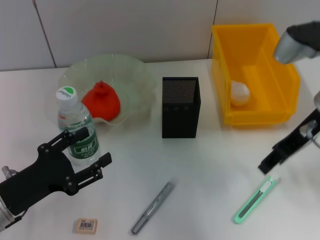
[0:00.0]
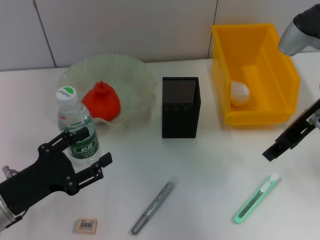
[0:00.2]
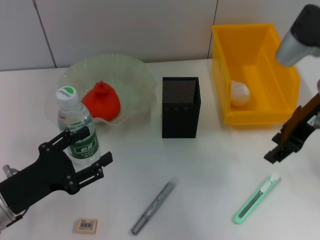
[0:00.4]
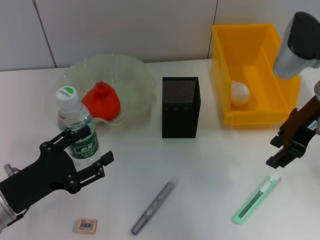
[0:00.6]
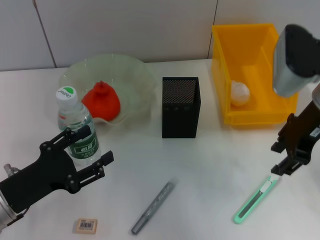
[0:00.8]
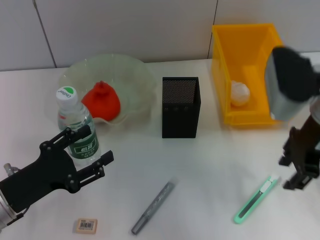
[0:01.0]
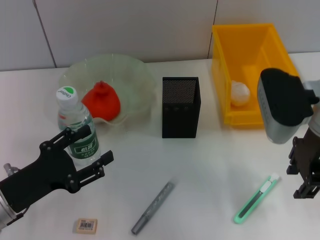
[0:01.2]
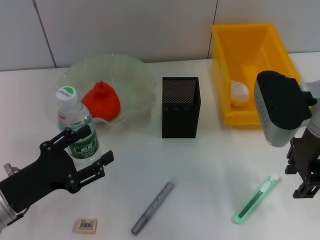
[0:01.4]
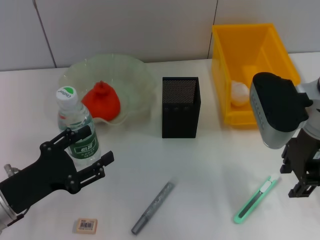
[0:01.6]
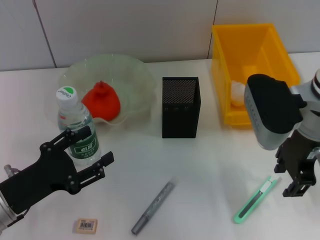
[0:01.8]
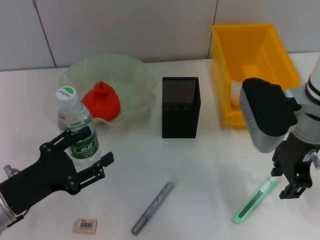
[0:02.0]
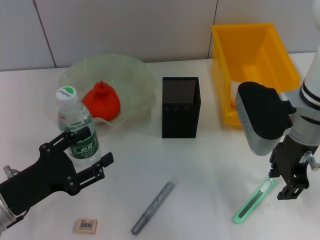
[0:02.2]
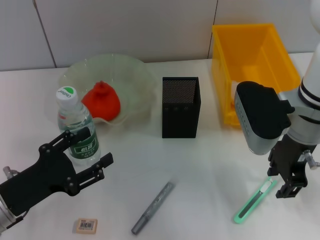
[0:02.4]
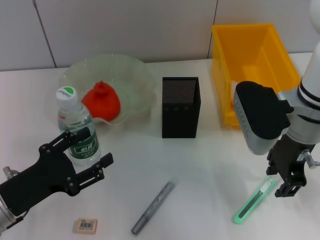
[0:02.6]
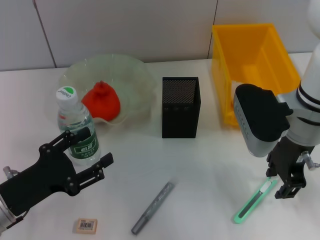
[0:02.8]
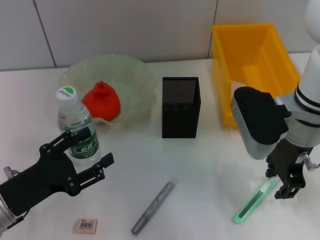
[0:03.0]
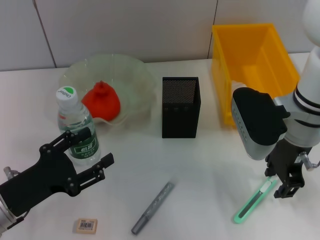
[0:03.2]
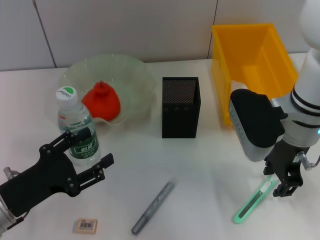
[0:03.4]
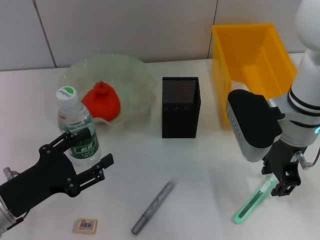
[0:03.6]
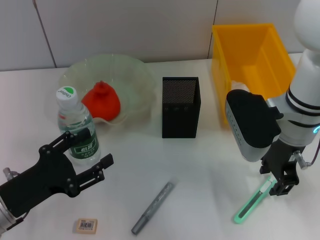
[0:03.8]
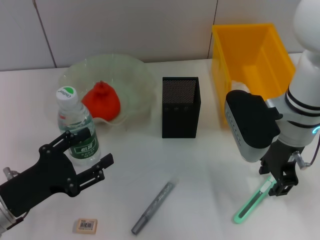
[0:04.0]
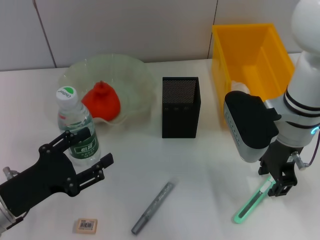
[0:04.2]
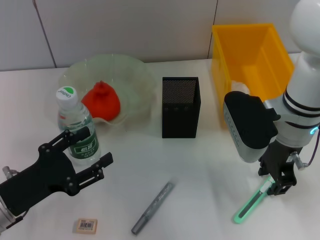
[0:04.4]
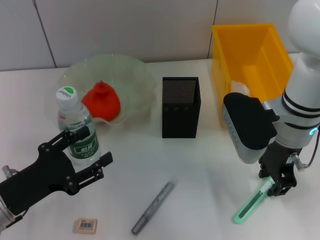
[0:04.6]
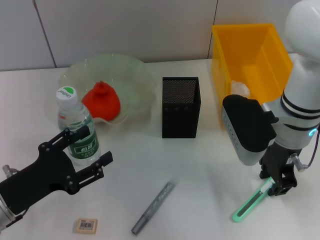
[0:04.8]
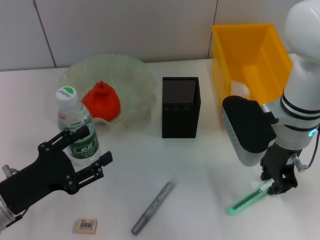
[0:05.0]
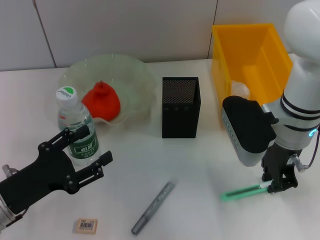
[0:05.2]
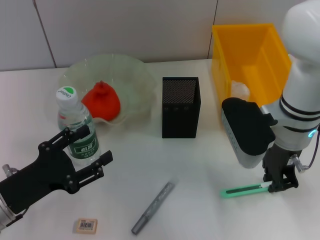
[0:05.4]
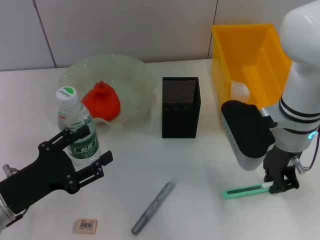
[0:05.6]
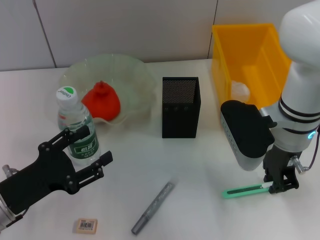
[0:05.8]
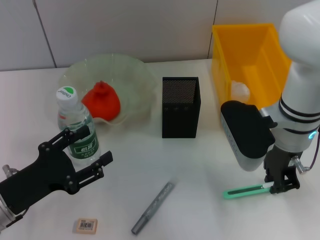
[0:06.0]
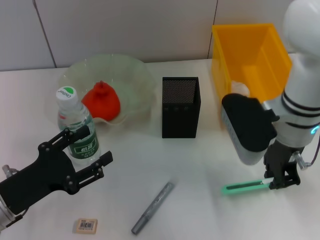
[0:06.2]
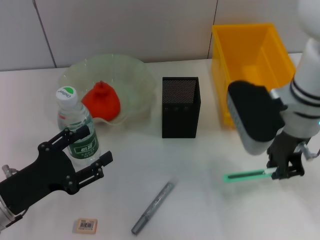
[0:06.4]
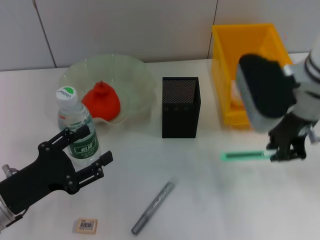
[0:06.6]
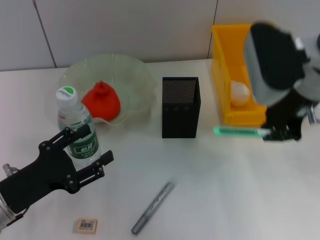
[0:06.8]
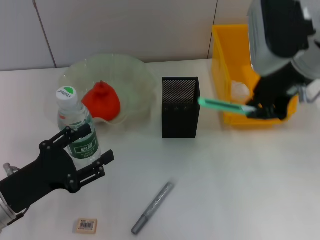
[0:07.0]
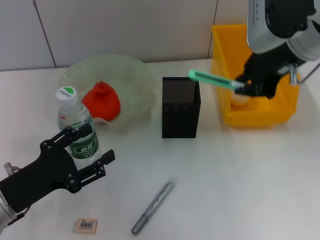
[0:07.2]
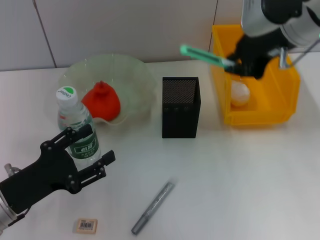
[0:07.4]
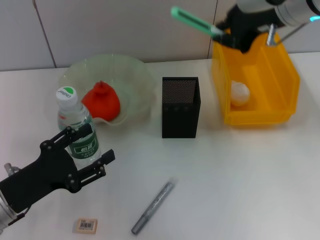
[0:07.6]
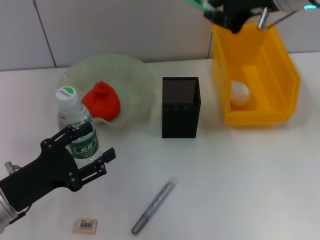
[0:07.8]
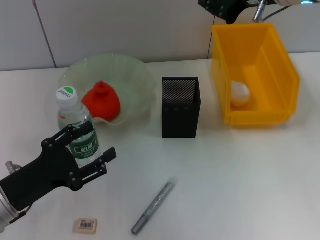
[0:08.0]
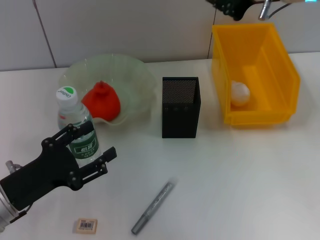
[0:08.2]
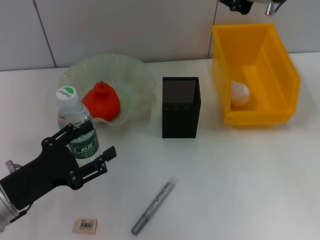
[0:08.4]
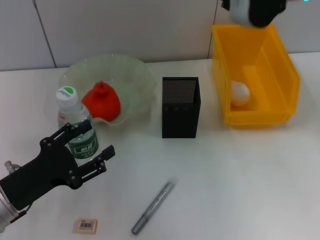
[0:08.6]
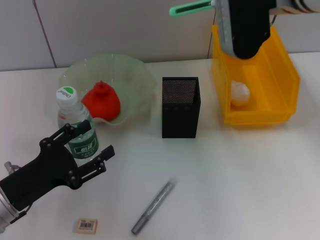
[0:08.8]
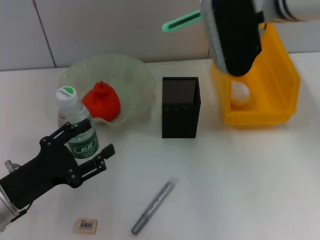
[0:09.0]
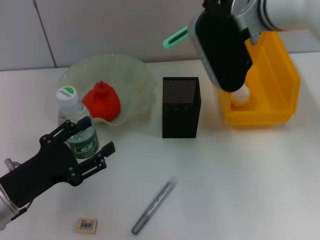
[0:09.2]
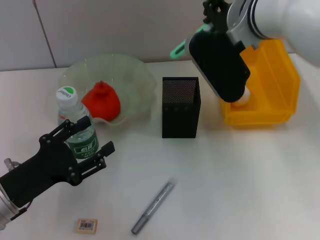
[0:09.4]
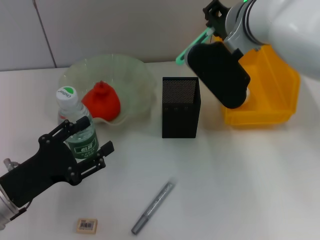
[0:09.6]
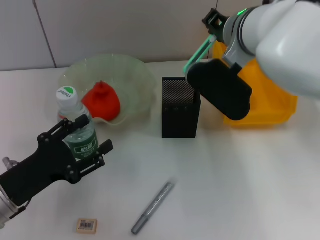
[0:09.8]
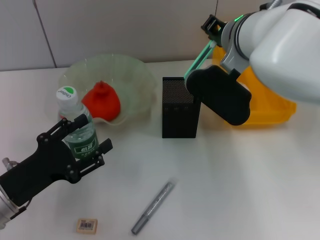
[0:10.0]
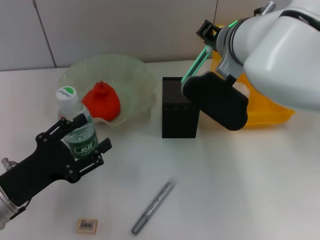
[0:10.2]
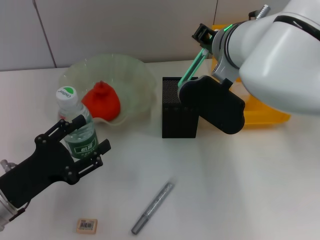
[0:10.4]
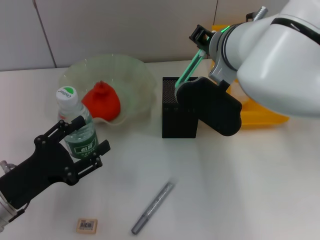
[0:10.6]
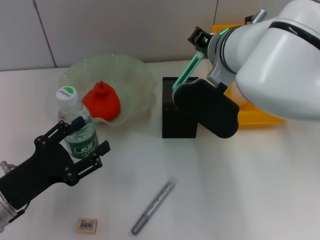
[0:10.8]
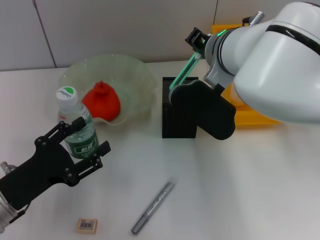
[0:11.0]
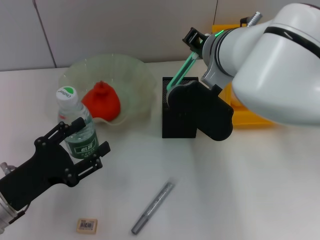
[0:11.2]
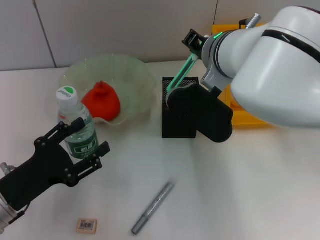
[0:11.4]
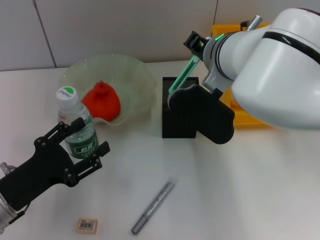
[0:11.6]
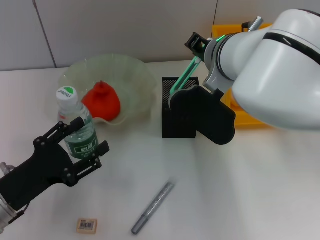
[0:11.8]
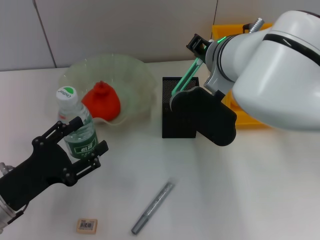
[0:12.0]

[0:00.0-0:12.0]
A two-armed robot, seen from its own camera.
Step, 0:00.0 to 0:05.4: Grab the blue utility knife with the right hand.
0:01.6 to 0:04.4: There are only small adjustments of the grippers.
0:04.4 to 0:06.0: The right gripper closes up.
0:06.0 to 0:07.6: The right gripper goes approximately 15 cm upward.
0:09.0 to 0:10.4: The right gripper is displaced downward by roughly 5 cm.
0:10.4 to 0:12.0: The grippers stay close to where they were, moving slightly.

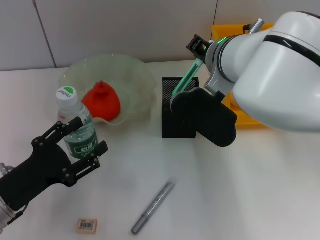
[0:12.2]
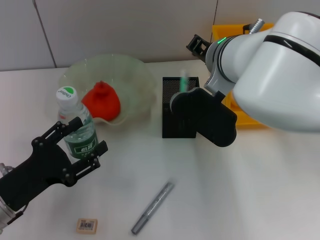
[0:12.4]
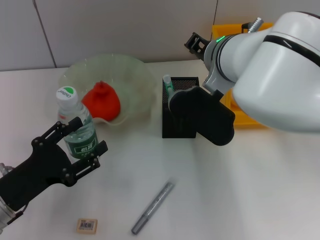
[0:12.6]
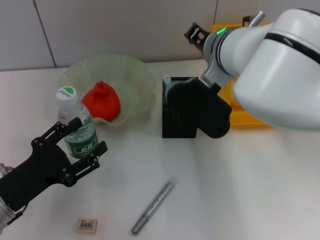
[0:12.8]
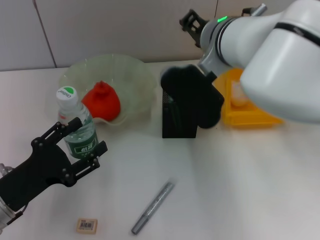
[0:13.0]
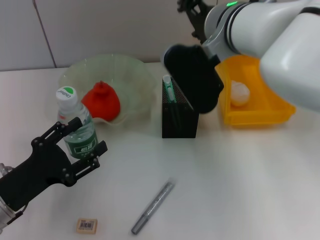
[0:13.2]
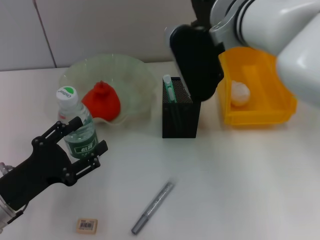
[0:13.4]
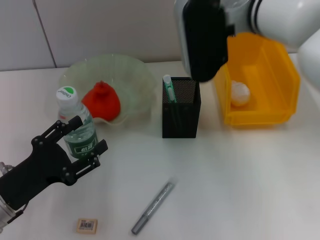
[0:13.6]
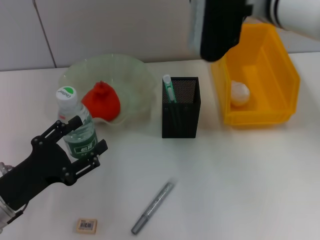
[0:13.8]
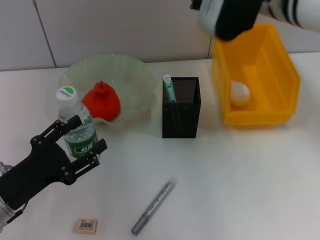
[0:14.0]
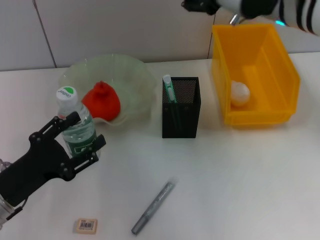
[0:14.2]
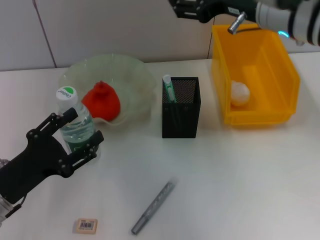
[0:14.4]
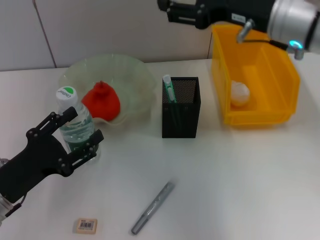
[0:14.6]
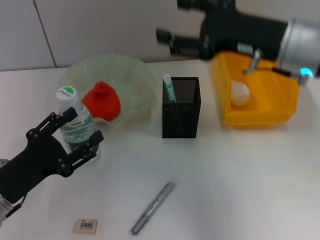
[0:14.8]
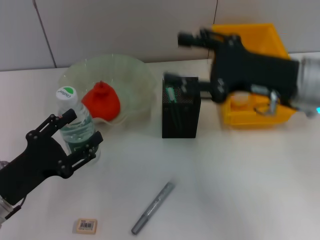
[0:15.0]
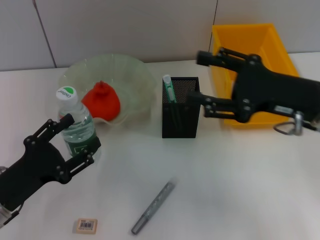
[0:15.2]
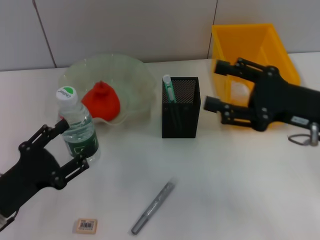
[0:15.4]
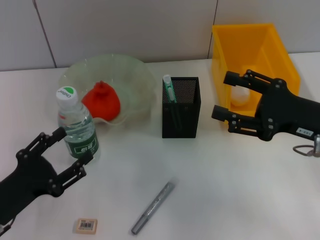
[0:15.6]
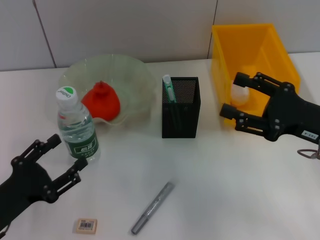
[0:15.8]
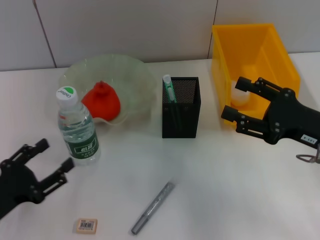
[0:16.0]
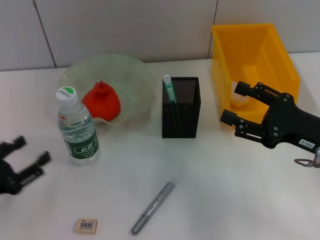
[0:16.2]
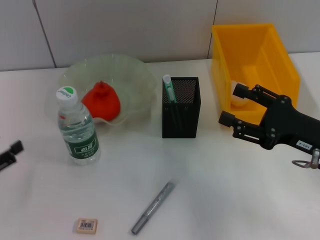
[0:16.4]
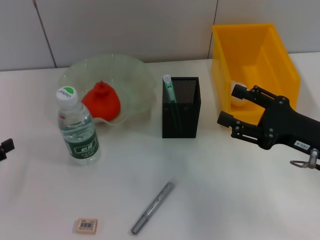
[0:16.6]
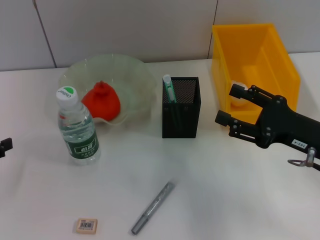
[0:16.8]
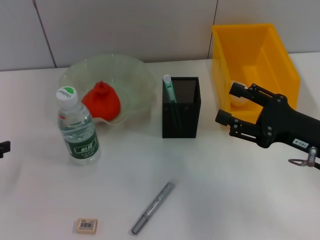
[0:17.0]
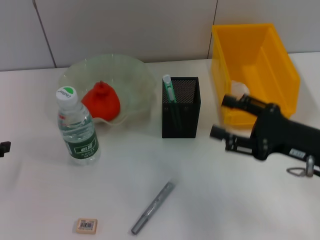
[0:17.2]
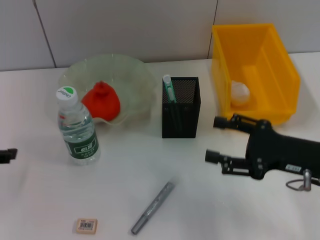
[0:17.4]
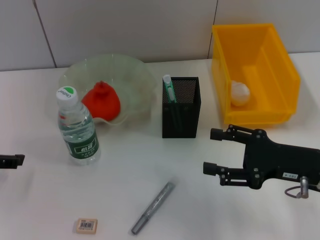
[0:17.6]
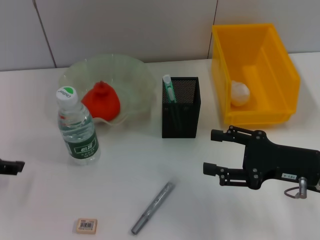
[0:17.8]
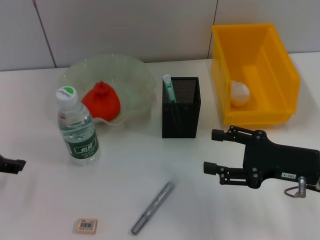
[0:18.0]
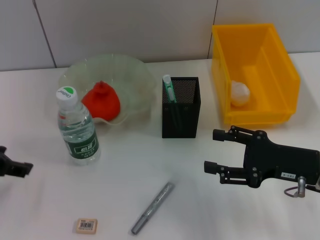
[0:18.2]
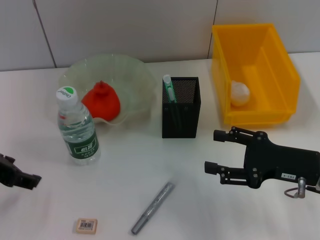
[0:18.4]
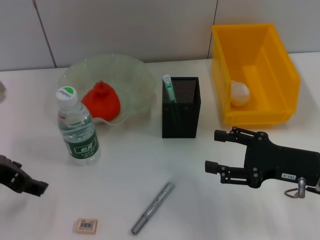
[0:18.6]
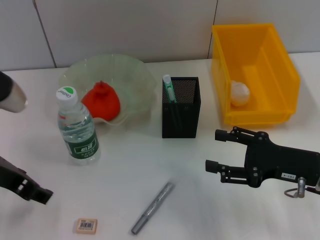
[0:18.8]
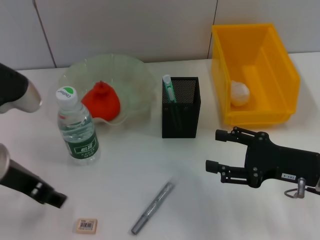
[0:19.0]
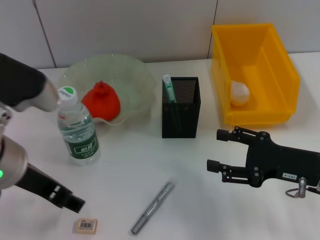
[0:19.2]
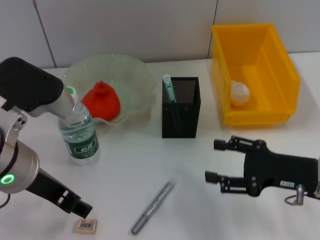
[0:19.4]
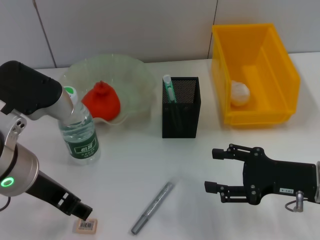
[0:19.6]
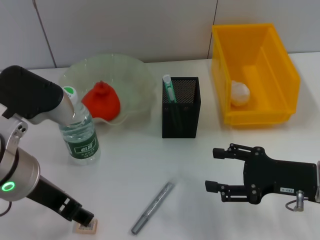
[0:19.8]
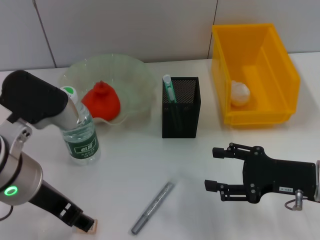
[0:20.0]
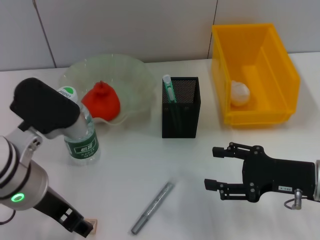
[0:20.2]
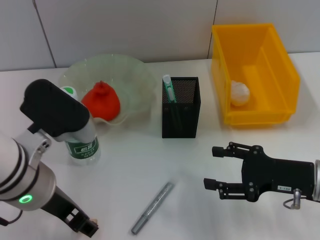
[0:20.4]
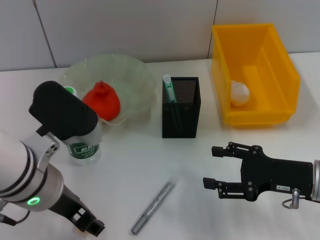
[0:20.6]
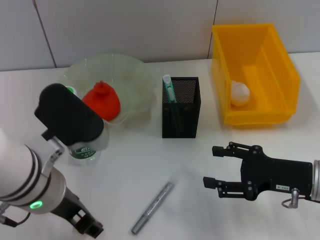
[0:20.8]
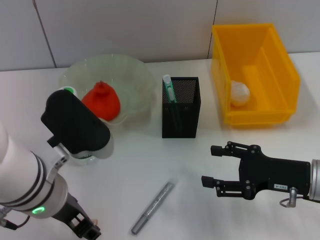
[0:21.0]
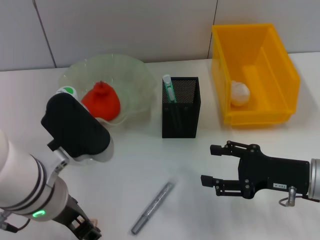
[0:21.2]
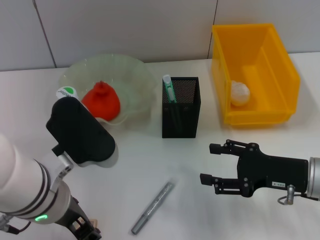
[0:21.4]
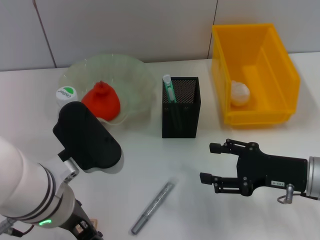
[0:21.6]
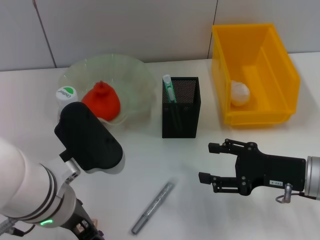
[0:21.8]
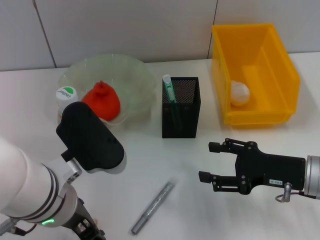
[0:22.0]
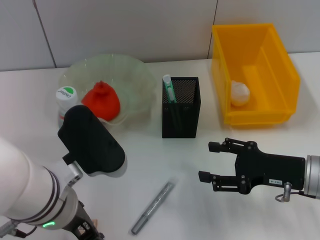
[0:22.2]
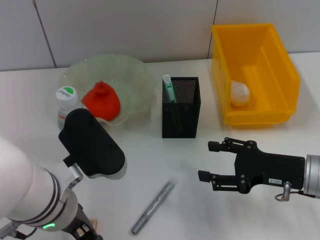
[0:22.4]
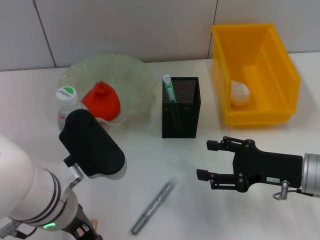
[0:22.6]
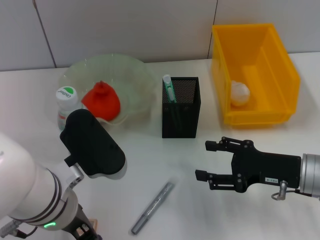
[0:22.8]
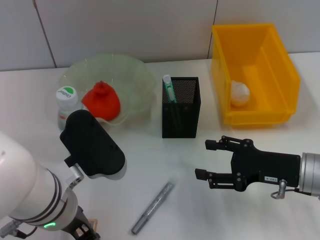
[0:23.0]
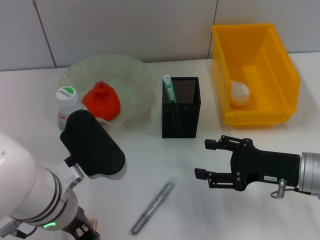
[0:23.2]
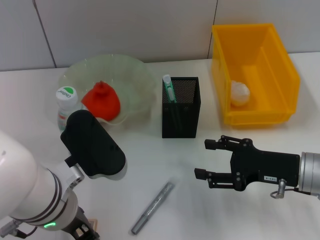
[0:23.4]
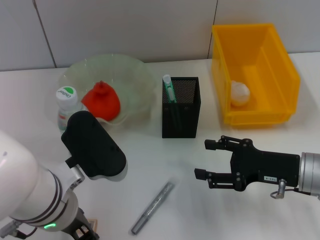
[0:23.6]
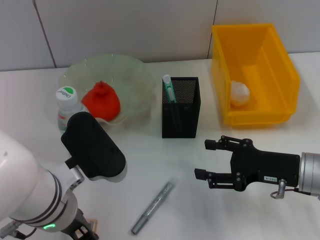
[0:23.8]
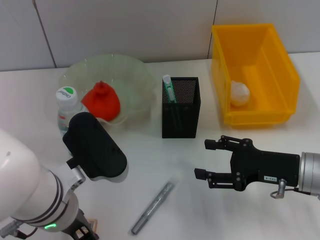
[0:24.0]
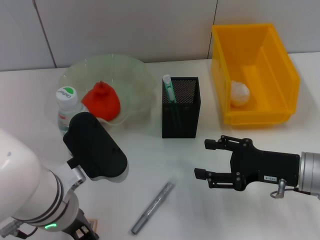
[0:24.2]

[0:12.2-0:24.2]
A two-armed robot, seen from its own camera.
Step, 0:13.6 to 0:24.0: Grab the eraser with the left hand.
0:12.2 to 0:13.8: The right gripper travels upward by some 5 cm, and opens.
0:13.8 to 0:15.2: The right gripper is displaced to the right, downward and backward by some 15 cm.
0:15.2 to 0:16.6: The left gripper shifts roughly 10 cm to the left. Meanwhile the right gripper moves downward, about 5 cm.
0:16.6 to 0:18.2: The left gripper goes some 15 cm upward and to the right.
0:18.2 to 0:19.8: The left gripper travels to the right by roughly 10 cm.
0:19.8 to 0:21.2: The grippers move only a little.
0:21.2 to 0:22.6: The grippers make only small movements.
0:22.6 to 0:24.2: Both grippers stay about where they are.
